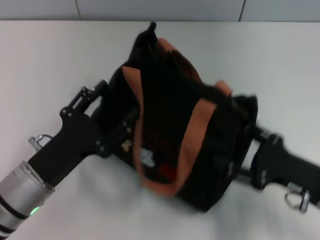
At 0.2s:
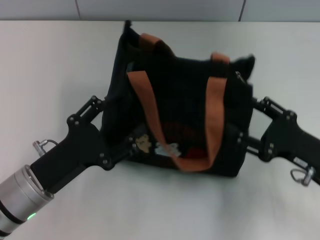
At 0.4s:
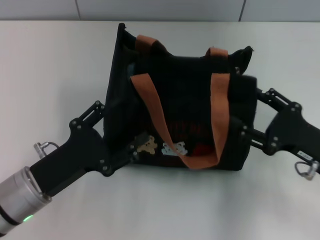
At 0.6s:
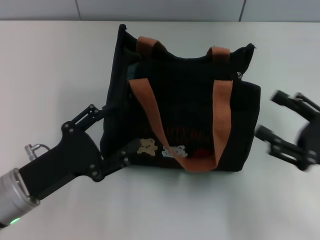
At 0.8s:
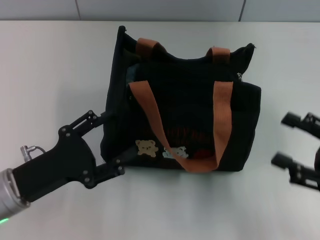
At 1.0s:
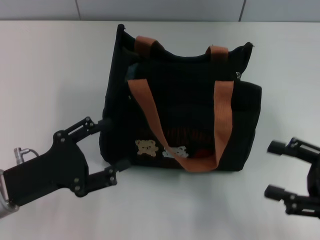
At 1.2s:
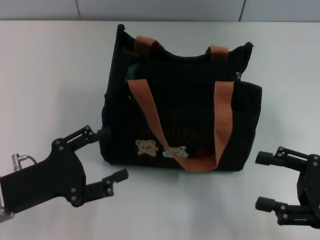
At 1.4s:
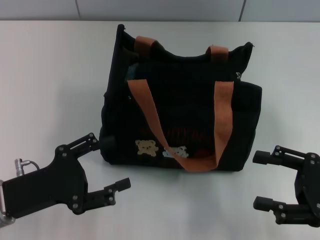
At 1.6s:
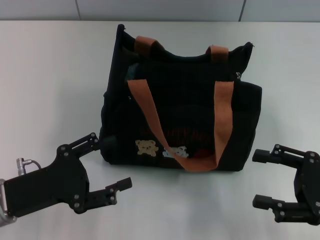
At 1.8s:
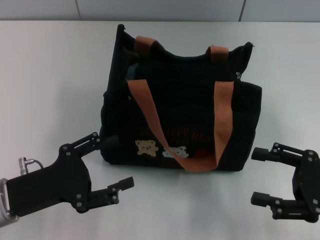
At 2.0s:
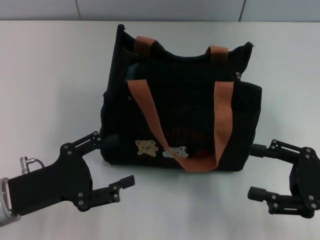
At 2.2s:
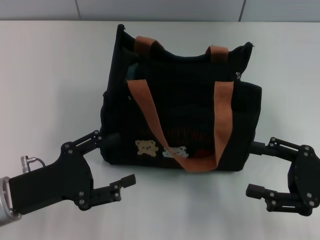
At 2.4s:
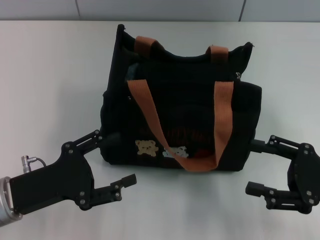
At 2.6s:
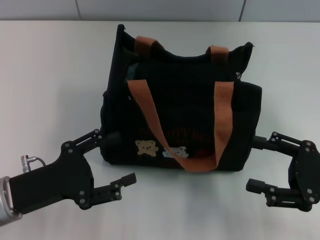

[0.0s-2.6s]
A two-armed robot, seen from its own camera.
0.0s to 1.2s: The left gripper goes roughly 5 cm to the left; the right gripper travels to the right by approximately 5 cm.
1.2s to 2.6s: The grippers stay close to where they were, moving slightly.
